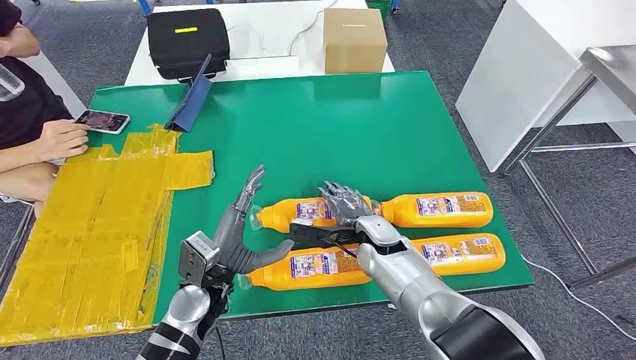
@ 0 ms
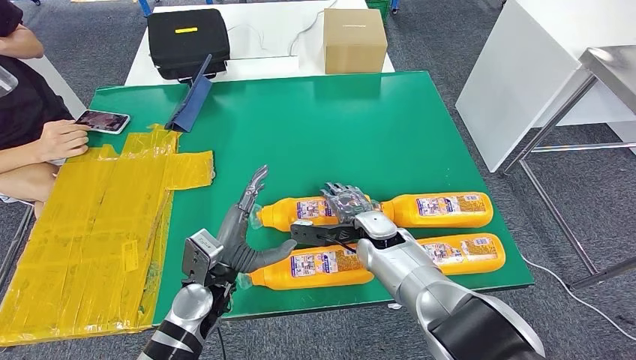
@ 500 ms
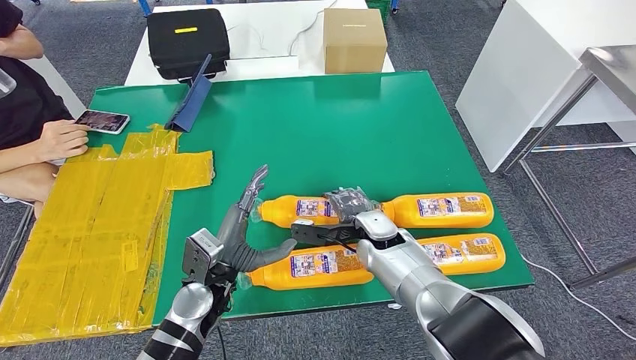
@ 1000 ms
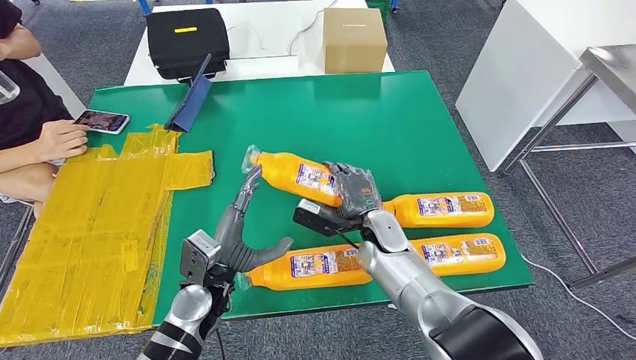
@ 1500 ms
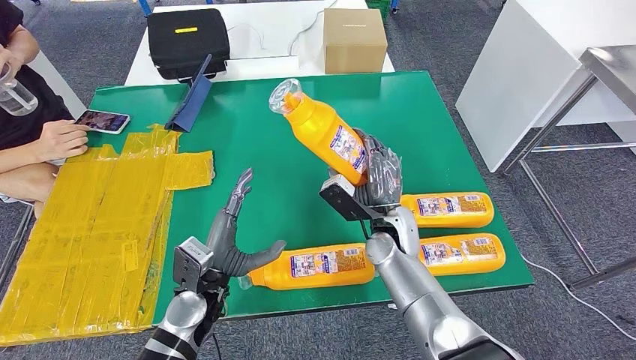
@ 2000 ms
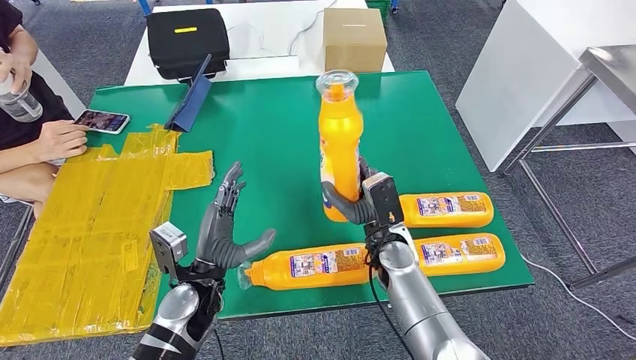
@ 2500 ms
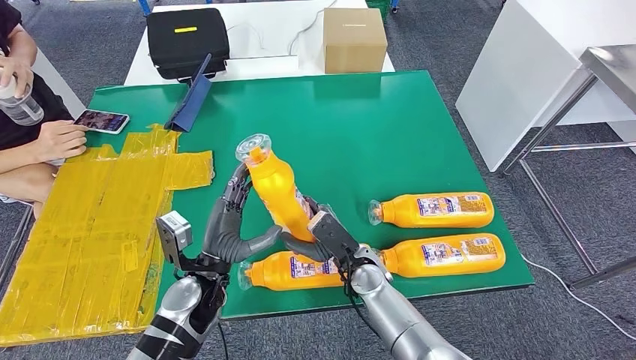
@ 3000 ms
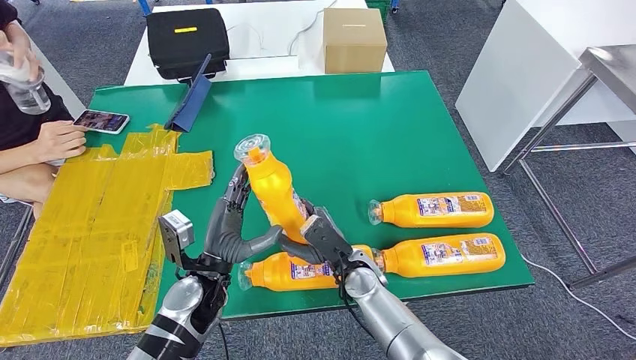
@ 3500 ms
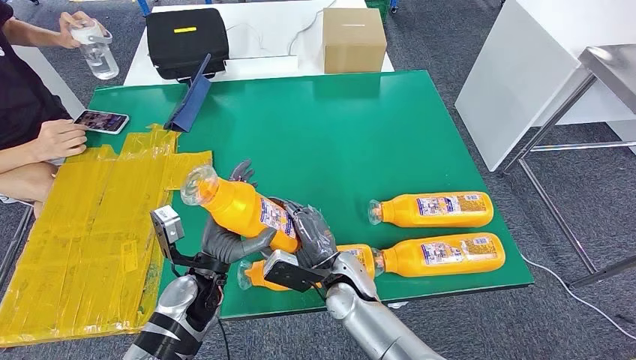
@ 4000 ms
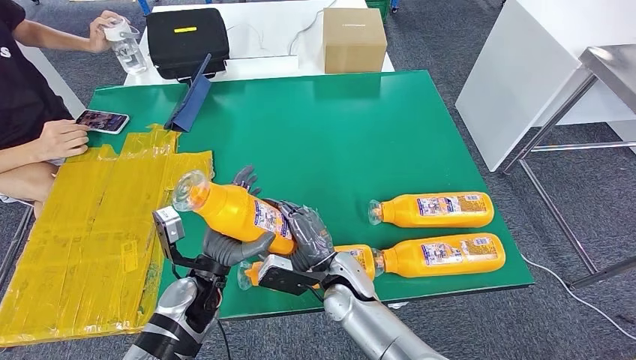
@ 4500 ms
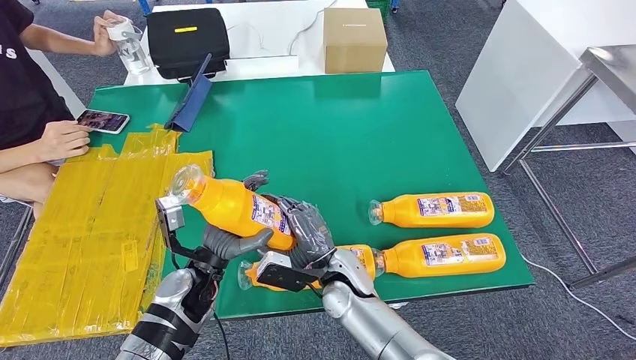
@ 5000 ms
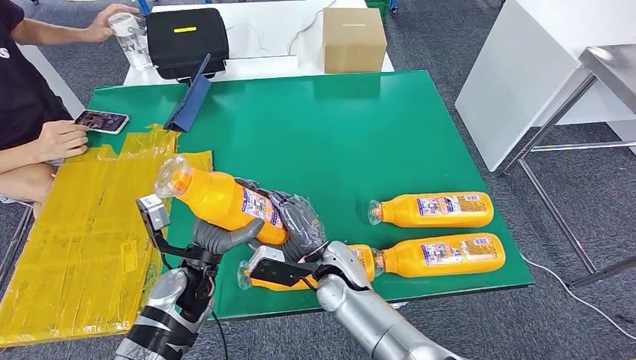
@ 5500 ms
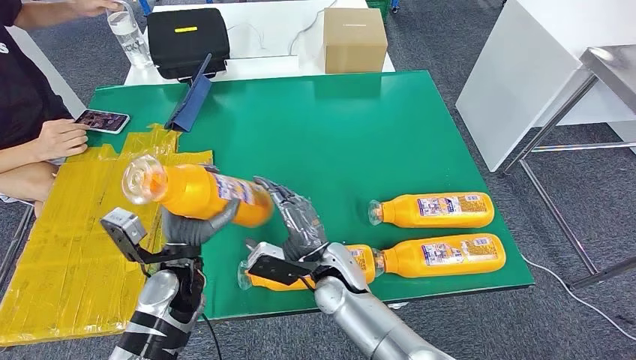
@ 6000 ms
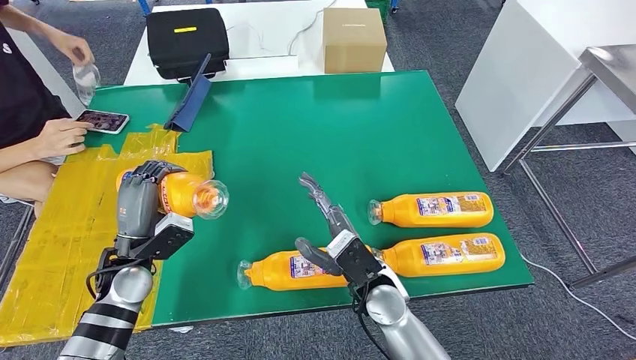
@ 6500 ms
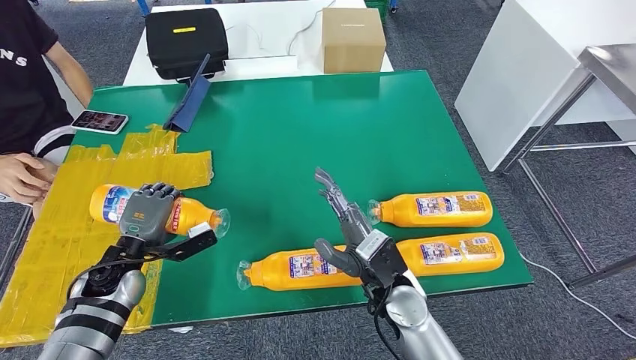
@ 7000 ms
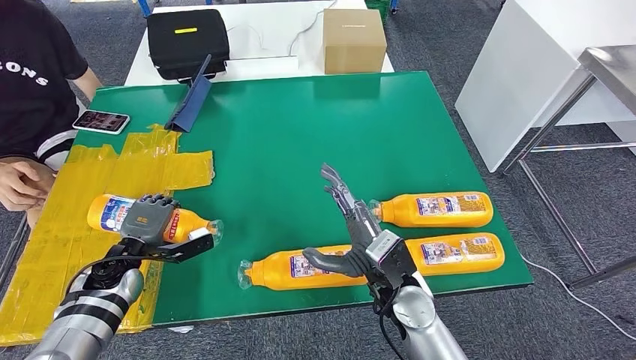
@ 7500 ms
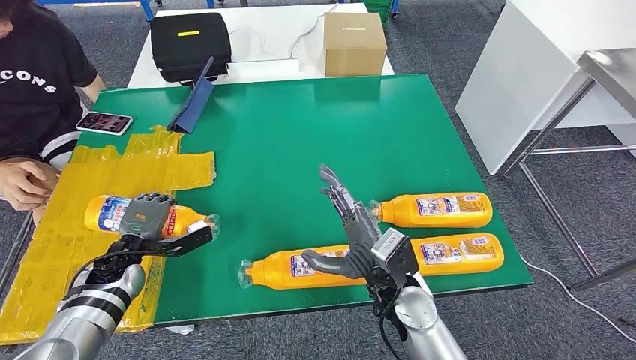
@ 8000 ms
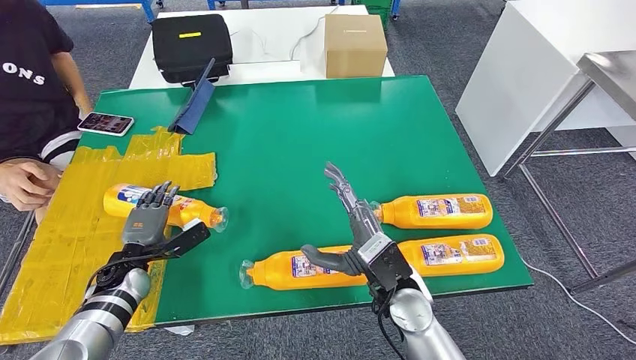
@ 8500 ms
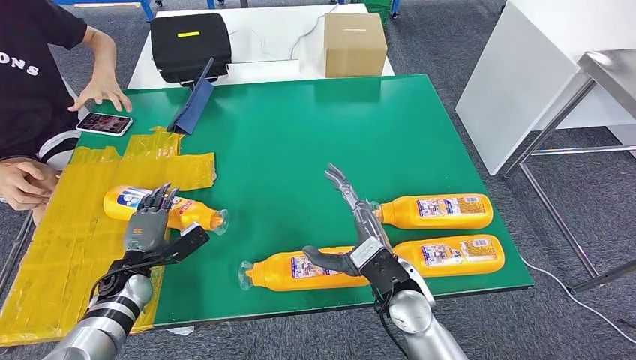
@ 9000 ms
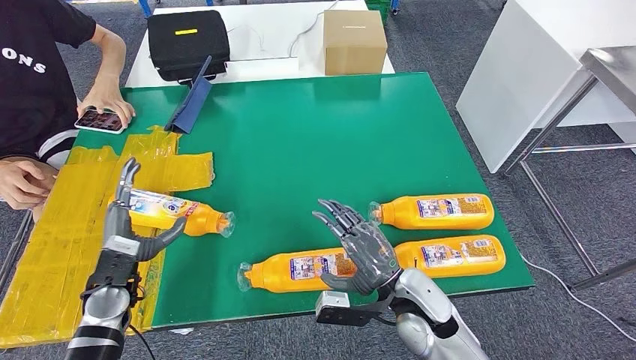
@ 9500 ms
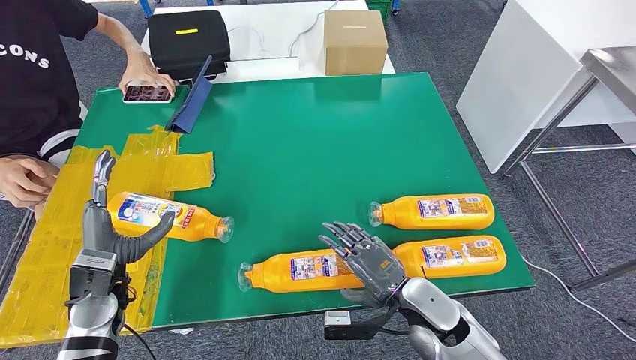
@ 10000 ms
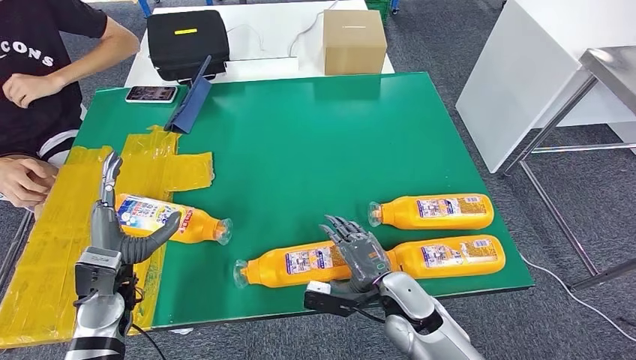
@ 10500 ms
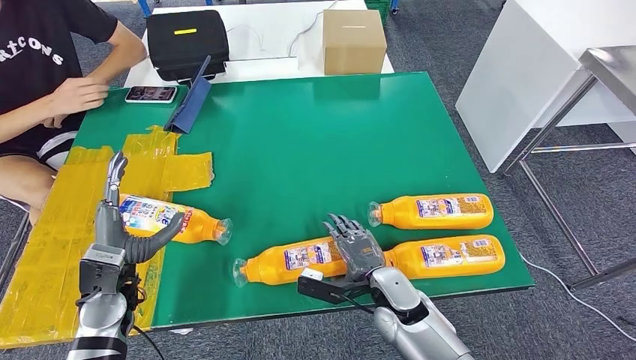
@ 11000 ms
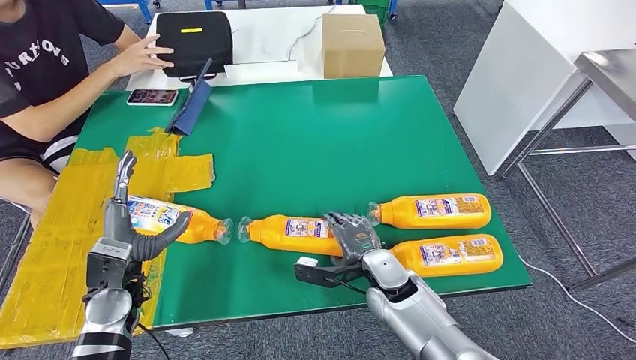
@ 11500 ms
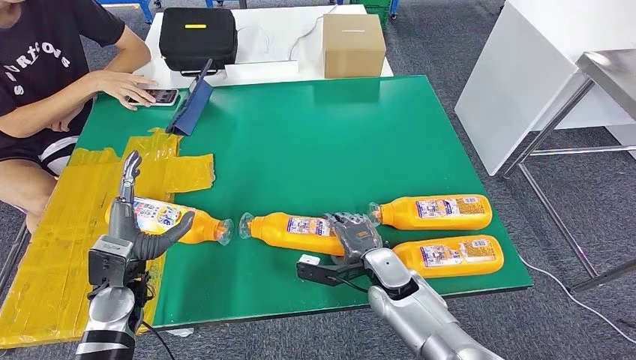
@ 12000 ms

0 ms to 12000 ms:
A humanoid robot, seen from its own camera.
Step, 0 ms to 4000 ms: Take the bottle from the table.
Step, 4500 ms to 9000 ms: Flip the bottle to face forward.
4000 ms to 6000 ms: The left hand moves some 5 cm.

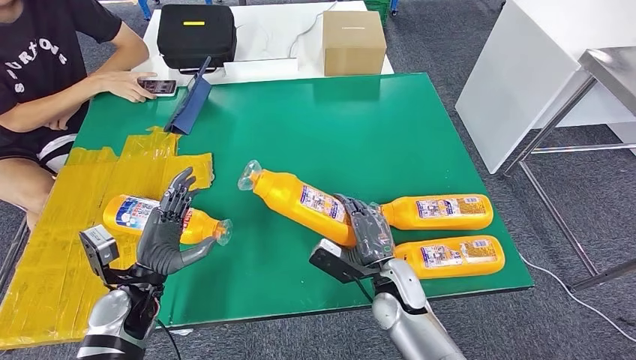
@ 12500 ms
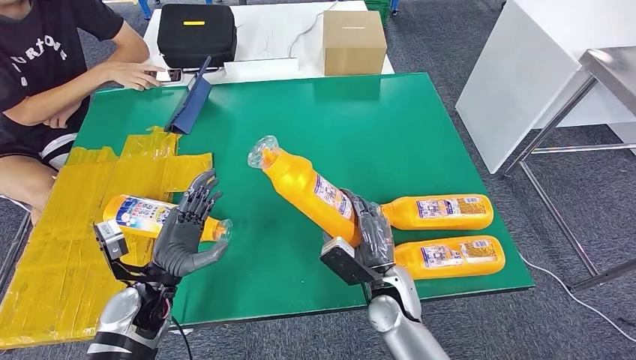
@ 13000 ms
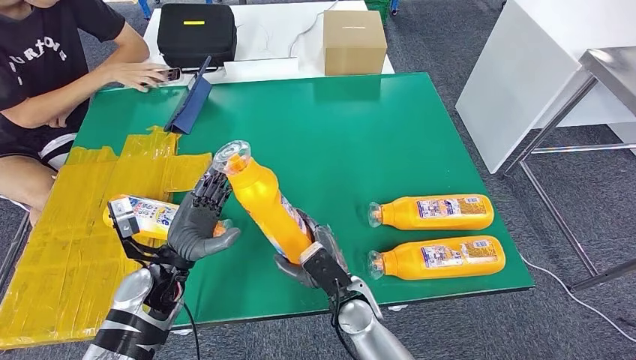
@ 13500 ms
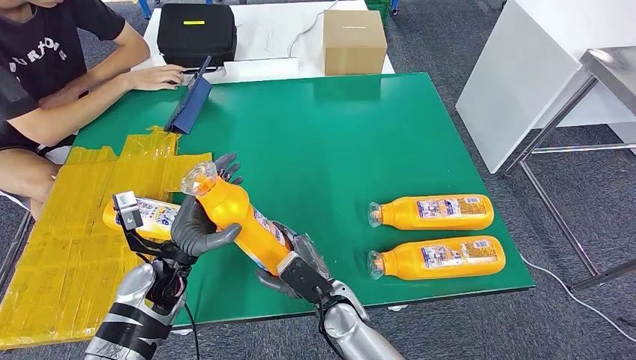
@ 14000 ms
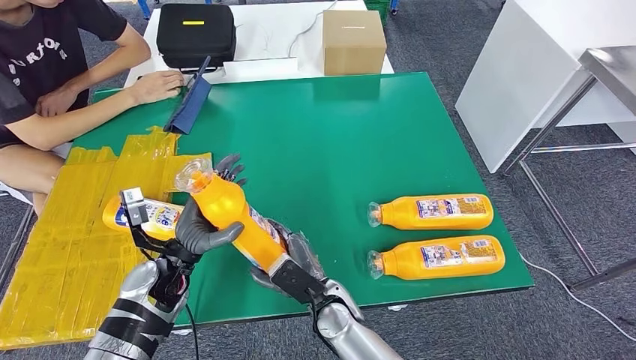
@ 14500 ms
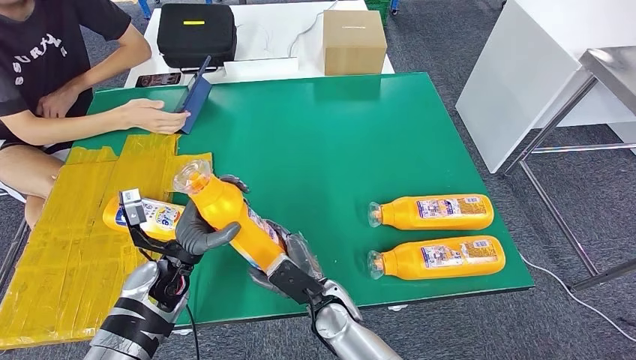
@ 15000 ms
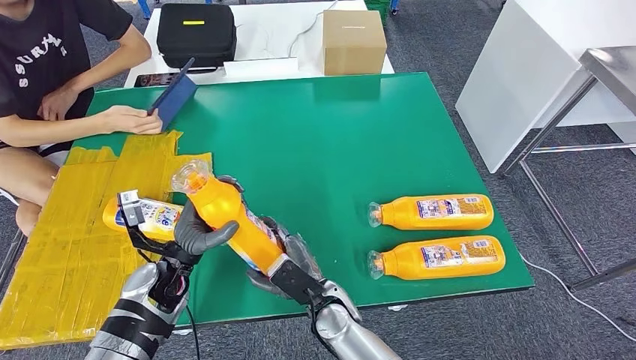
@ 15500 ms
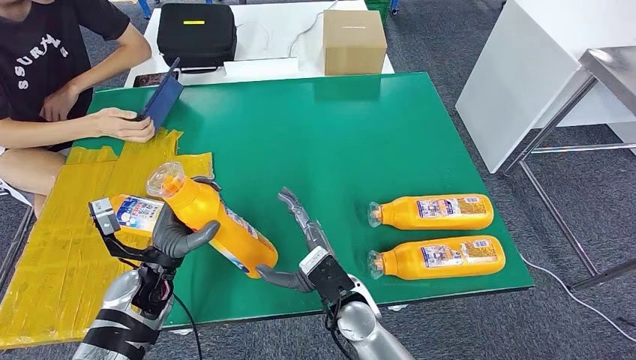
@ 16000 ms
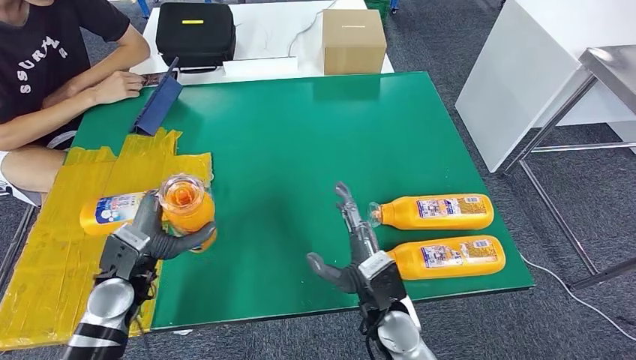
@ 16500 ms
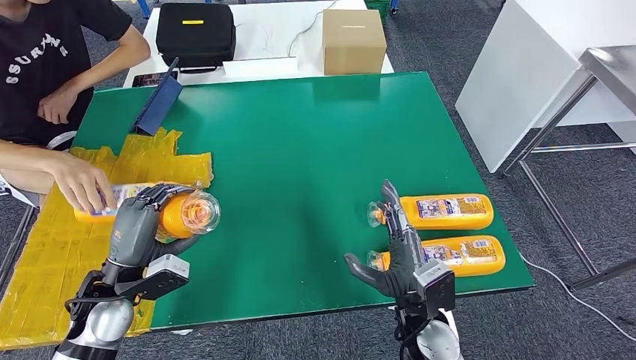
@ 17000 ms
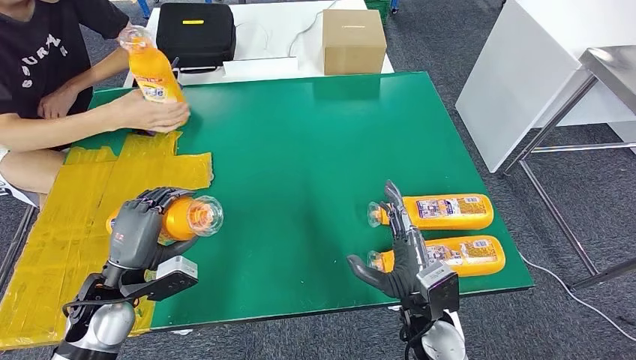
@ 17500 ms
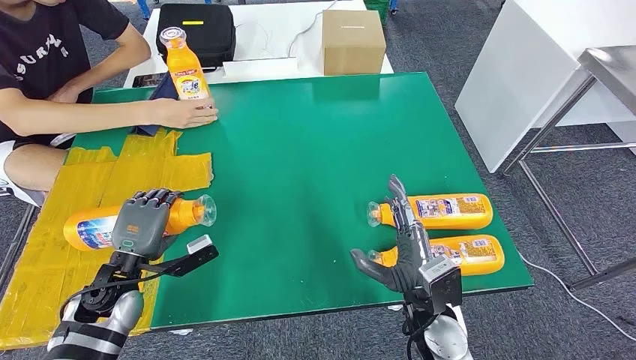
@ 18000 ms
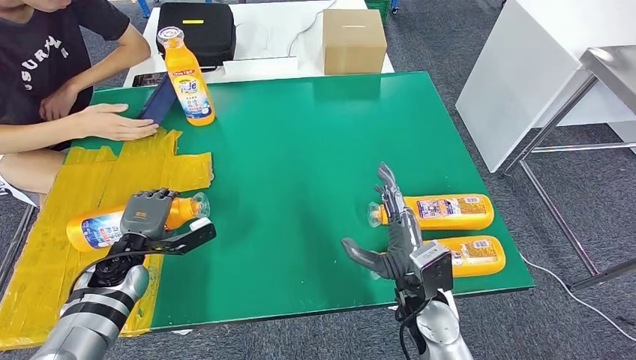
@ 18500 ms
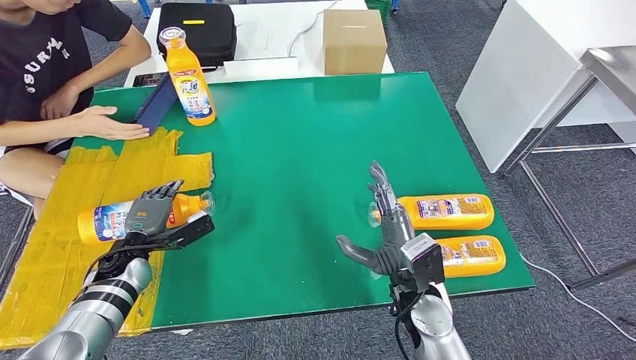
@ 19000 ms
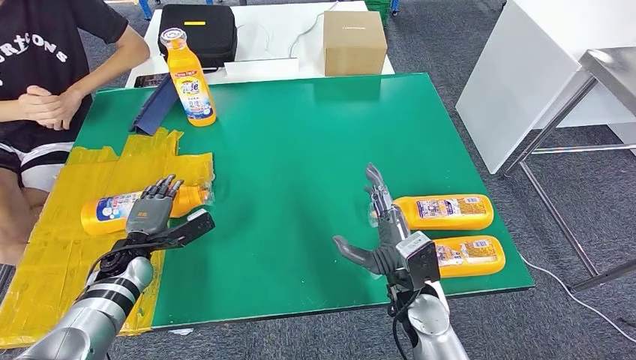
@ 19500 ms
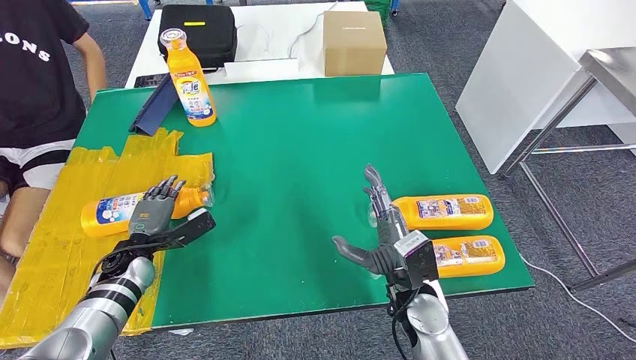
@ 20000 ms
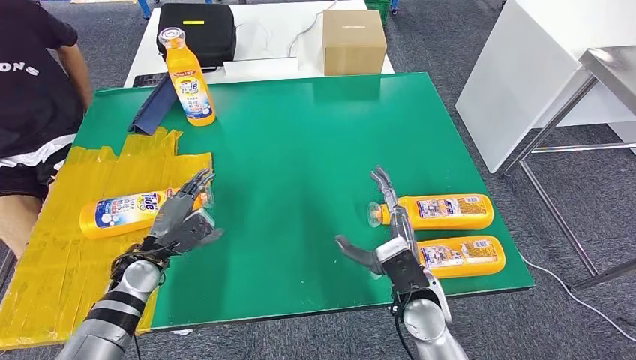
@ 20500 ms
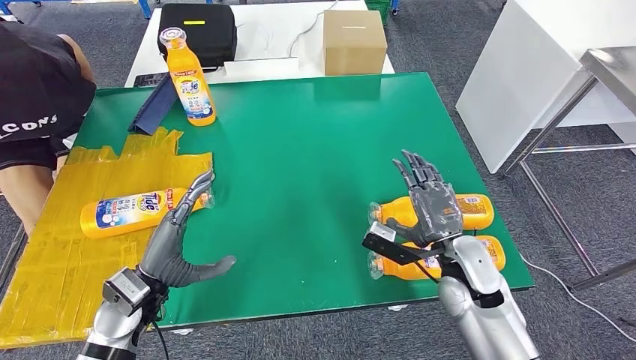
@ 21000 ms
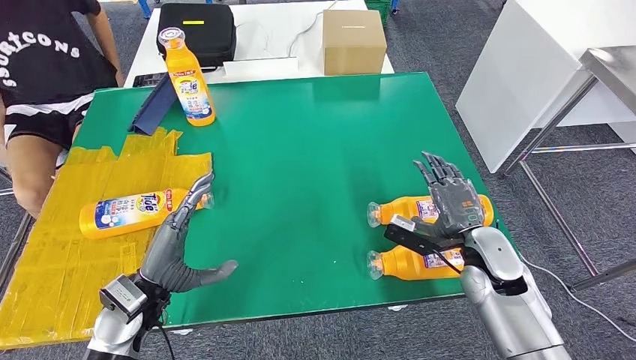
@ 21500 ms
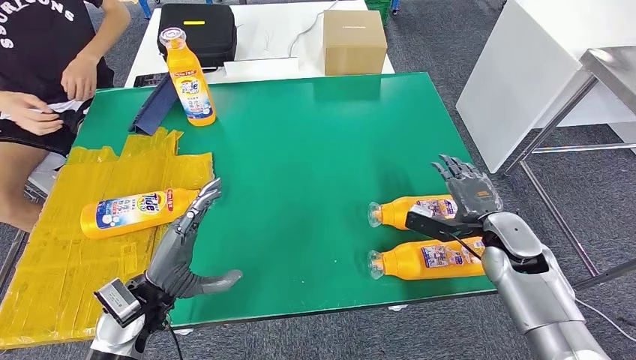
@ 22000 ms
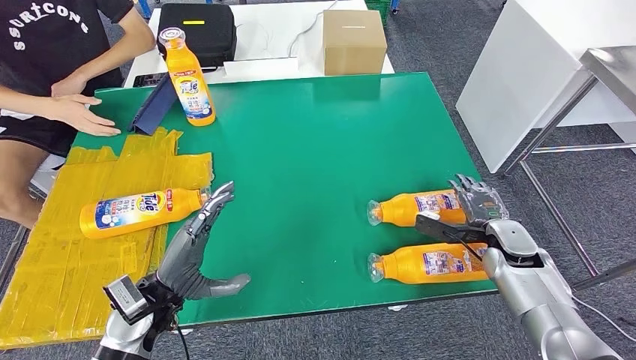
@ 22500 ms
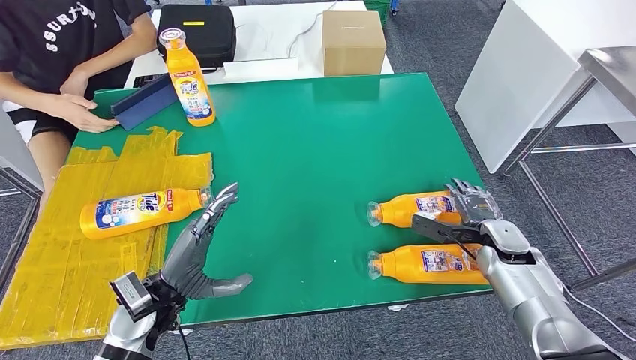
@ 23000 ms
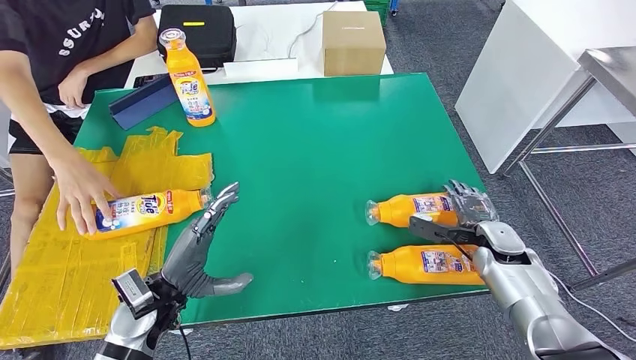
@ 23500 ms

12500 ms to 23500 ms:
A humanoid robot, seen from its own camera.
Step, 12500 ms to 15000 ms: Pick up the bottle from the table.
Step, 15500 ms to 20500 ms: Flip the bottle to face forward.
14500 ms to 16000 ms: The right hand ends up some 5 cm from where it was.
